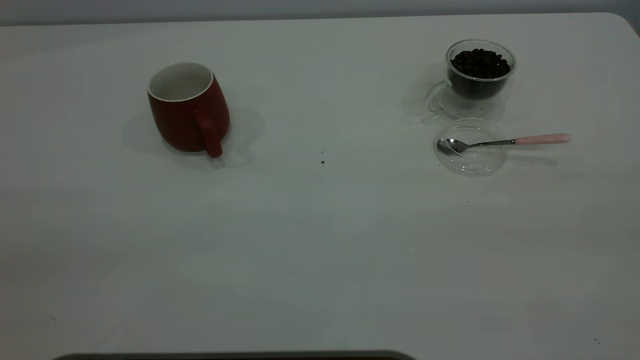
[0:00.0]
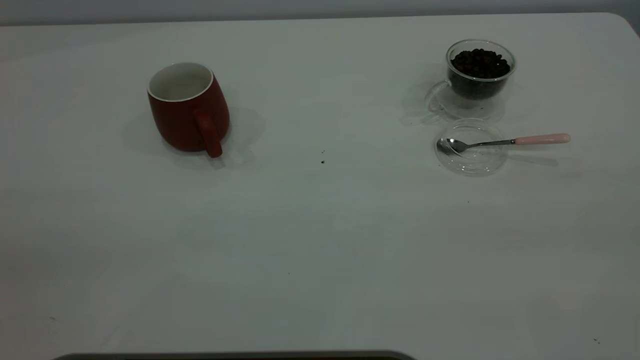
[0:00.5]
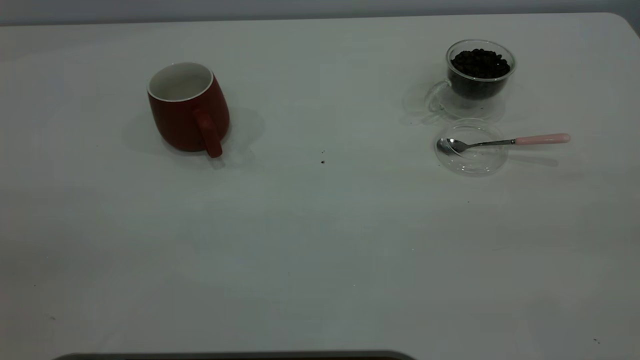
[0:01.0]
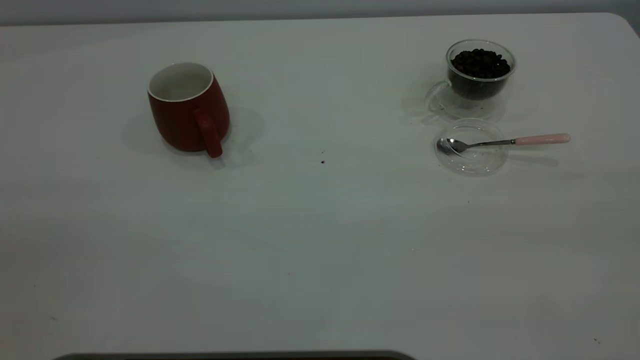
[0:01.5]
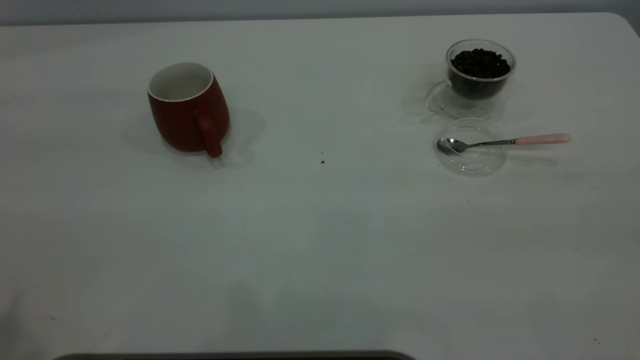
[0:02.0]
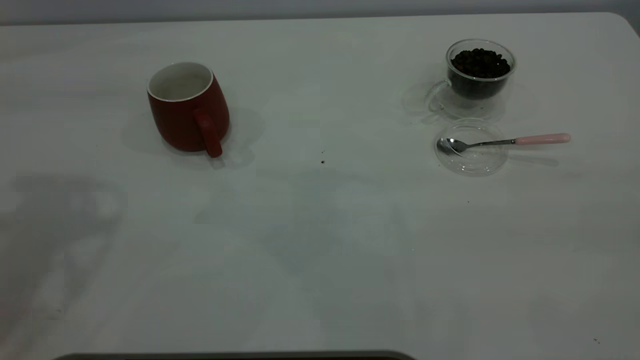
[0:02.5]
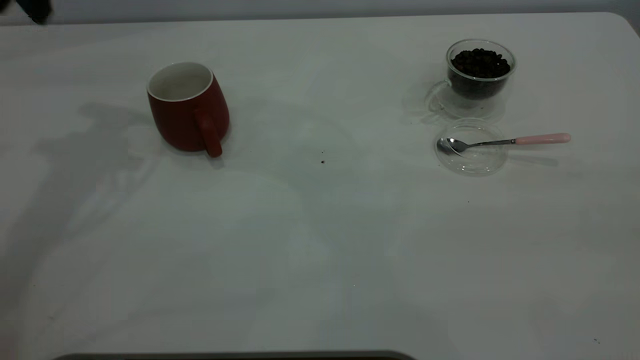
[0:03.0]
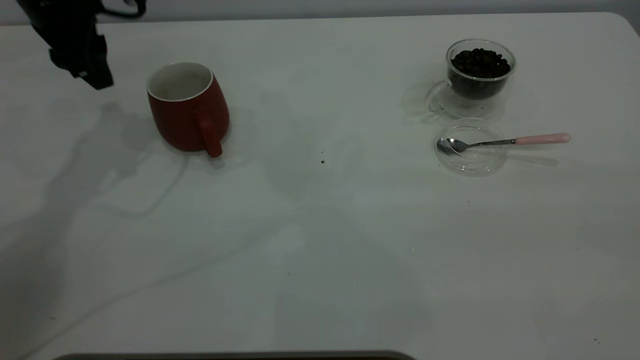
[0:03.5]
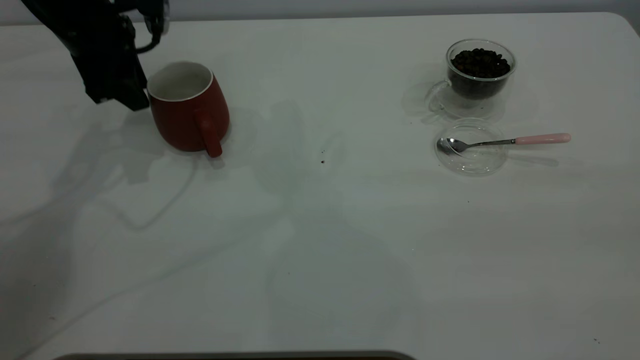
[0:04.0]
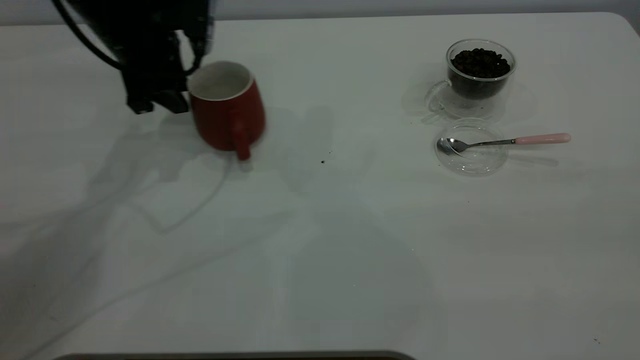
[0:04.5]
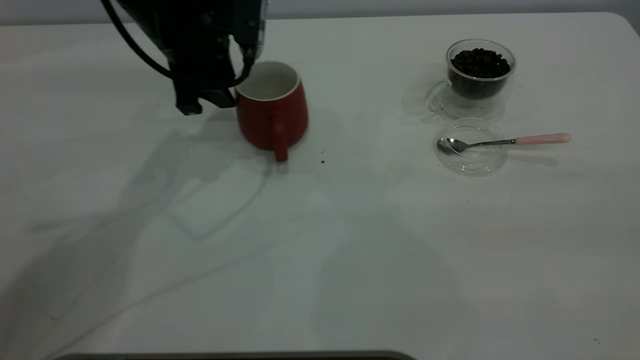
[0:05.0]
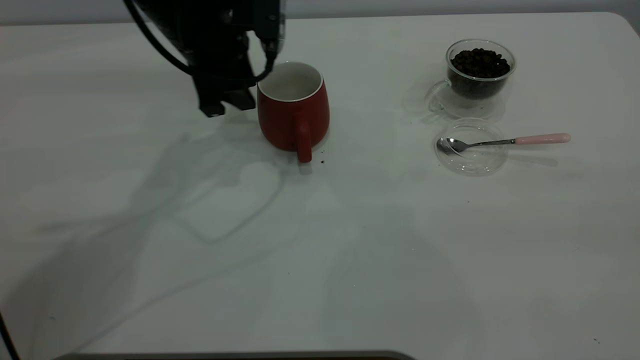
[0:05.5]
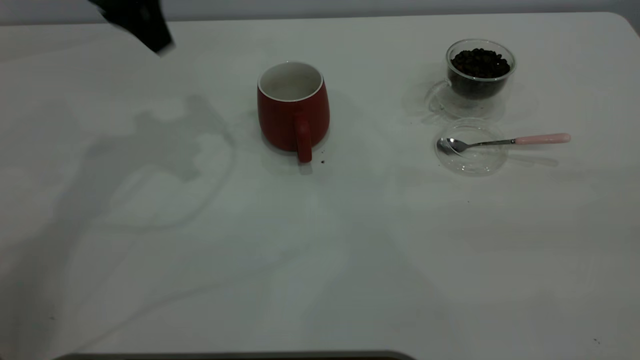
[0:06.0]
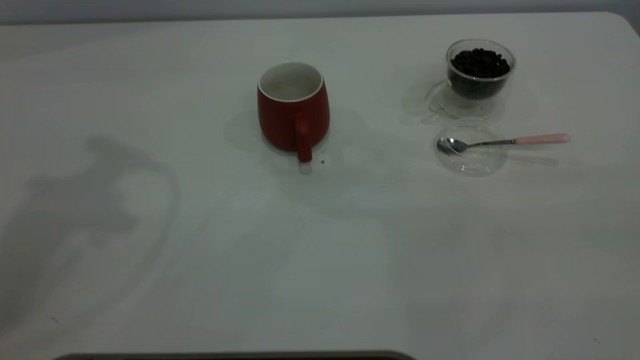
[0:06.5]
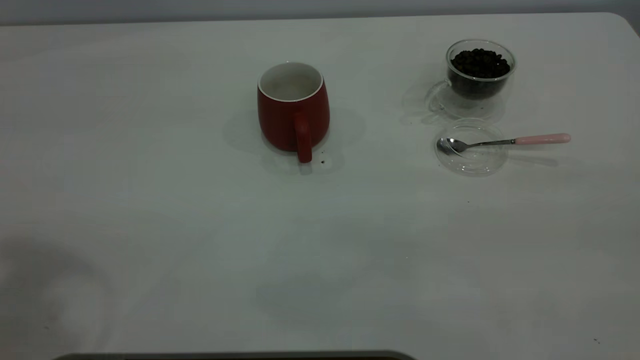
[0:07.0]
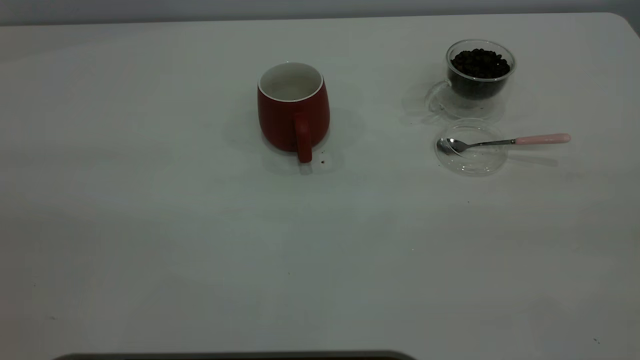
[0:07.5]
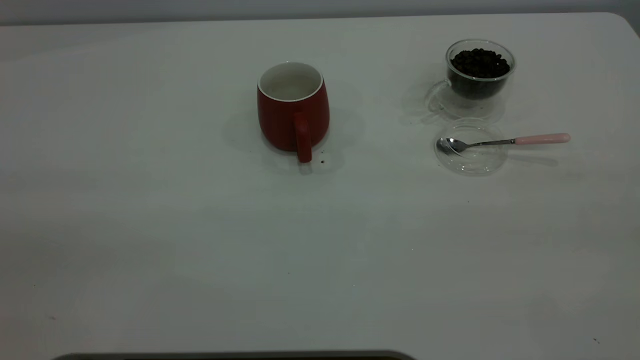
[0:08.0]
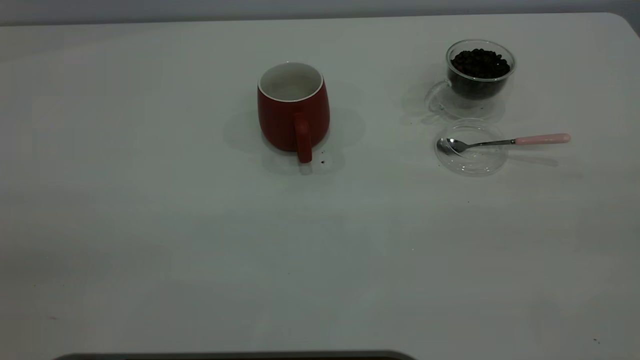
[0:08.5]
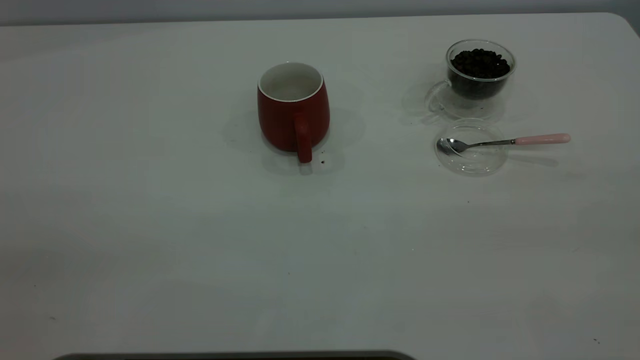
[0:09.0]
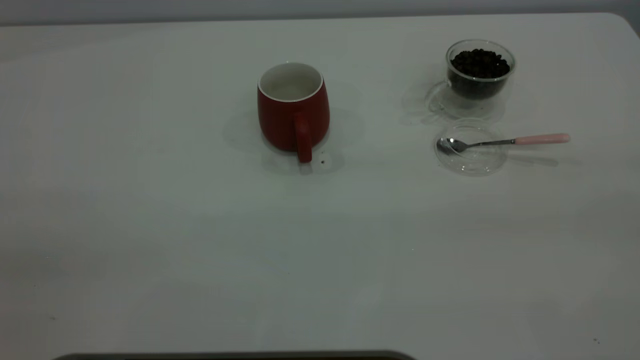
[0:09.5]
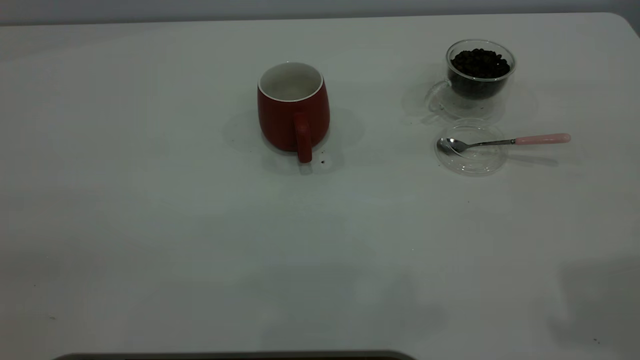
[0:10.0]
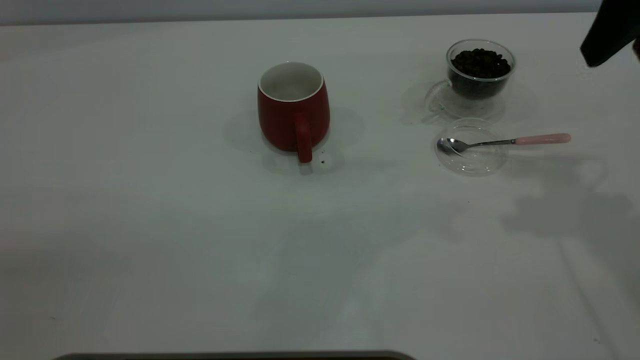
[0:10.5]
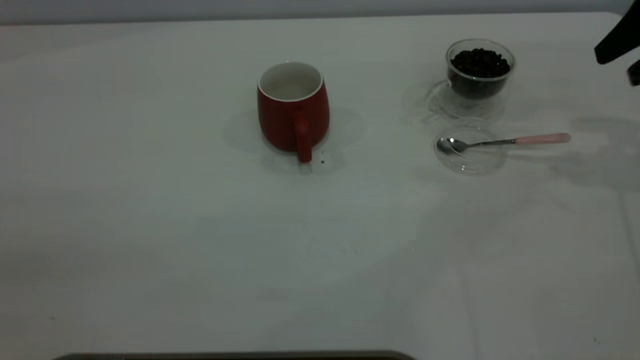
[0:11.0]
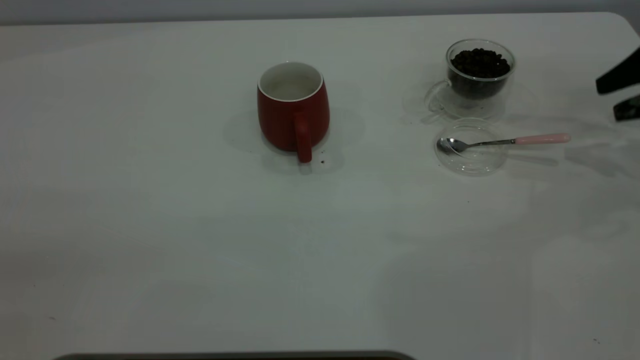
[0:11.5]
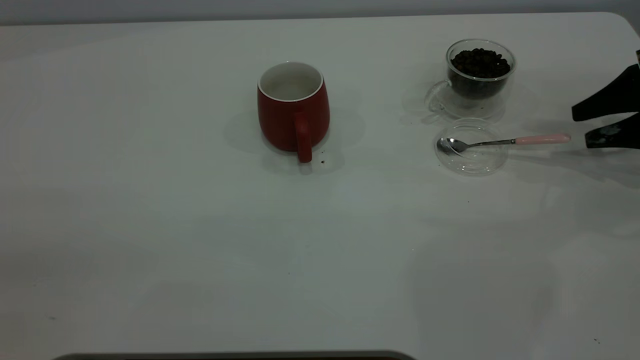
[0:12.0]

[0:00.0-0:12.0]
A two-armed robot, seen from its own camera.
Task of the whole recording: the left gripper place the red cup in the center of the table, the right gripper take the pink spoon from the cup lid and scoop out the coffee beans from the coffee cup and put them into the red cup, the right gripper put the spoon back into the cup lid.
Step, 0:00.0 to 0:05.5: Move the cup to the center of view.
0:02.0 to 0:04.0: The left gripper is displaced forward and downward by roughly 40 cm, and closes up.
0:04.0 to 0:06.0: The left gripper goes roughly 10 cm upward.
0:06.0 to 0:08.0: The left gripper travels backward by approximately 40 cm.
0:10.0 to 0:12.0: The right gripper heads downward, forward and to the right, covering roughly 35 cm.

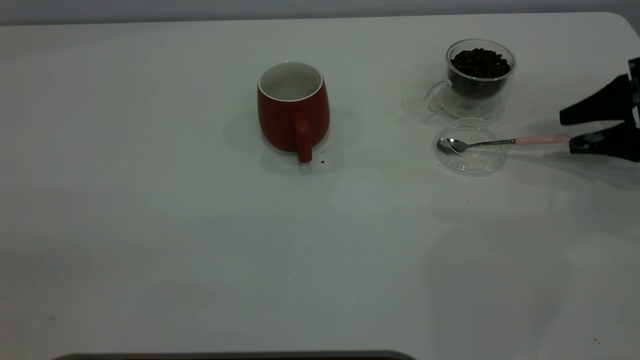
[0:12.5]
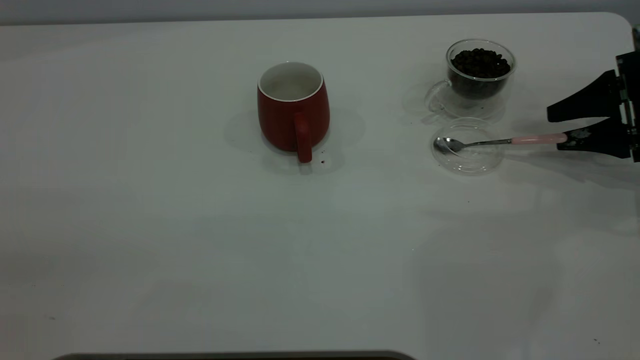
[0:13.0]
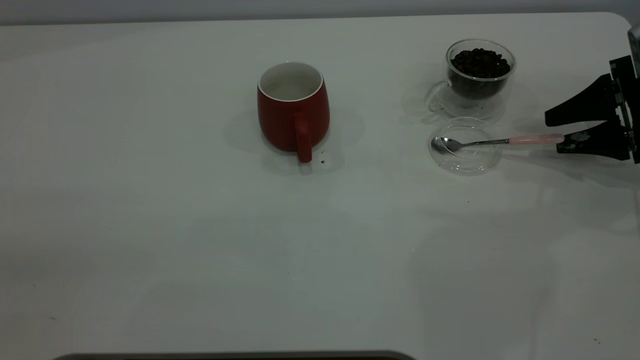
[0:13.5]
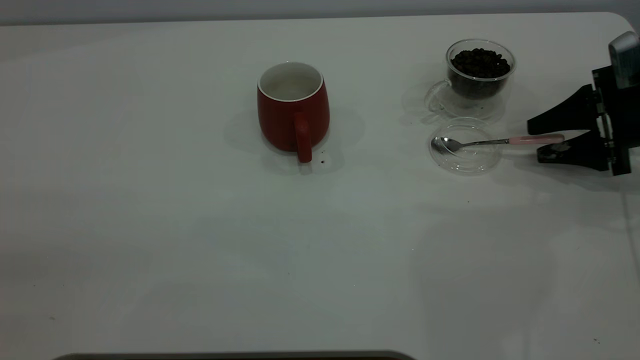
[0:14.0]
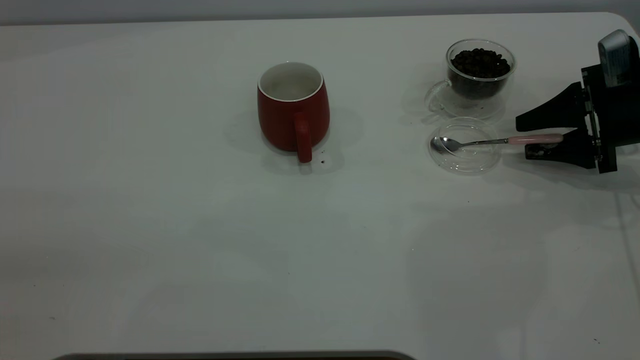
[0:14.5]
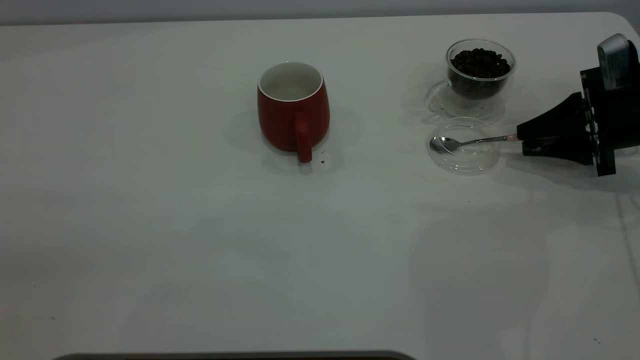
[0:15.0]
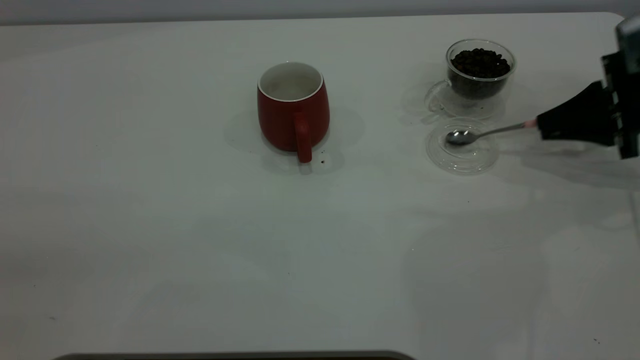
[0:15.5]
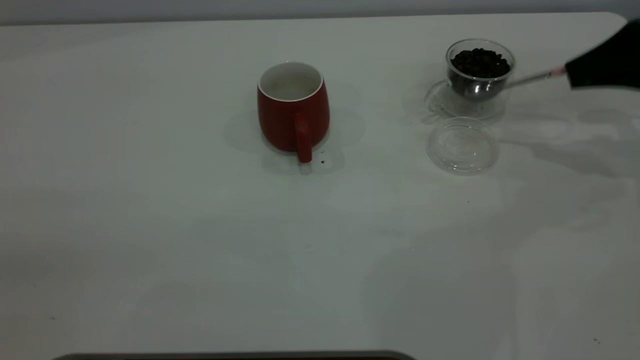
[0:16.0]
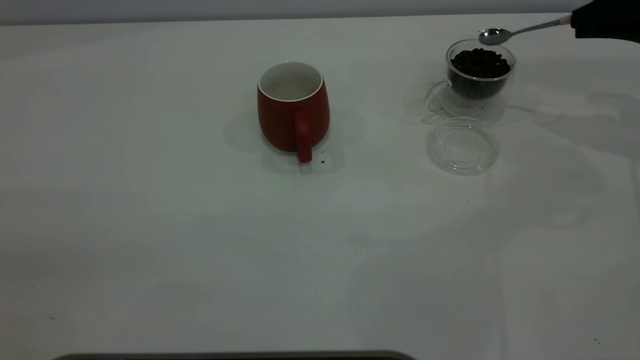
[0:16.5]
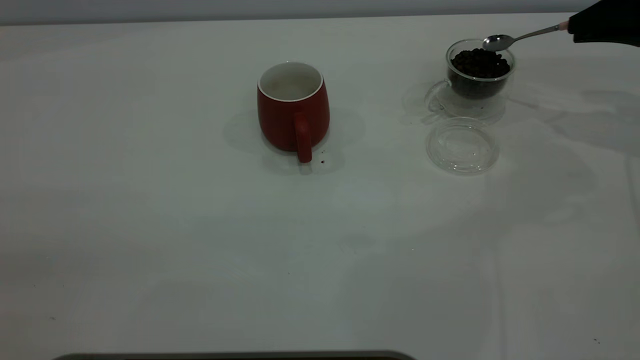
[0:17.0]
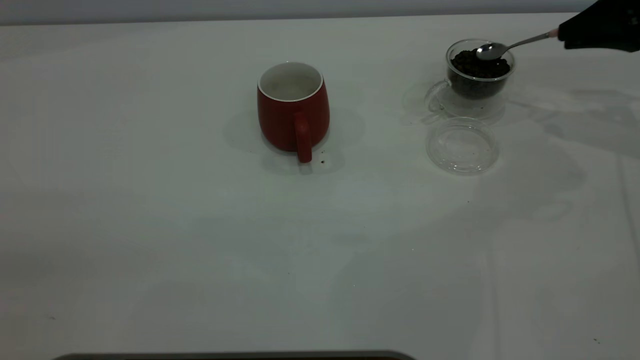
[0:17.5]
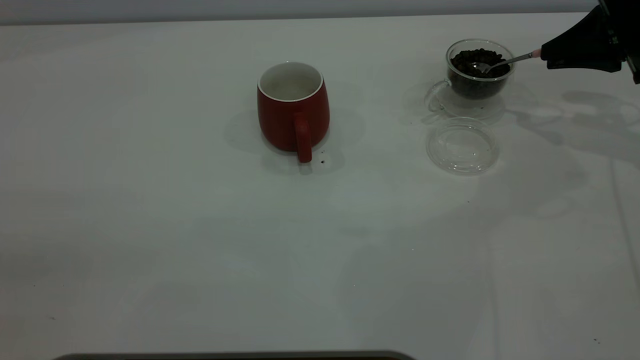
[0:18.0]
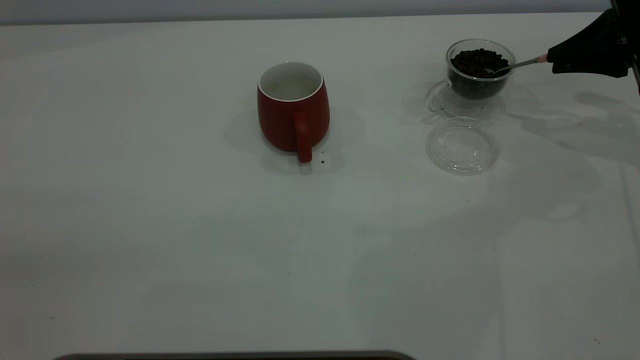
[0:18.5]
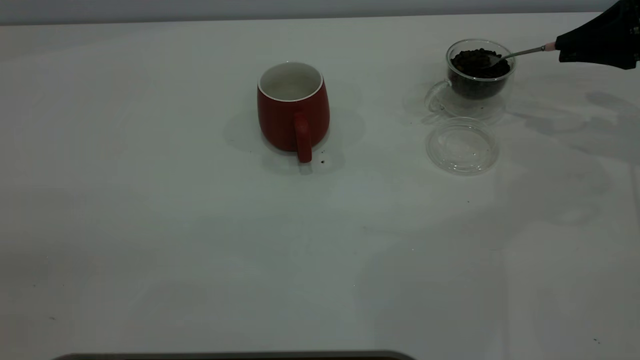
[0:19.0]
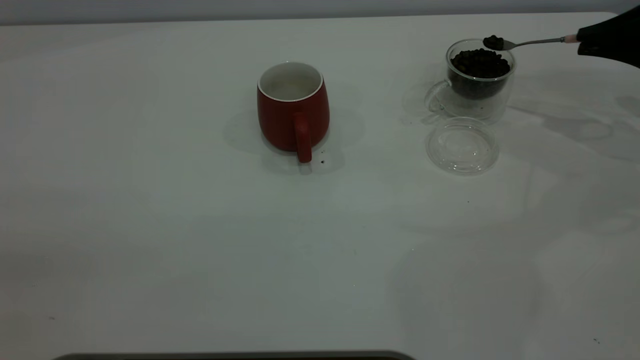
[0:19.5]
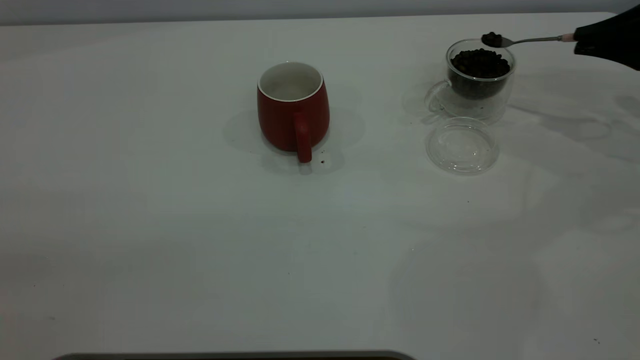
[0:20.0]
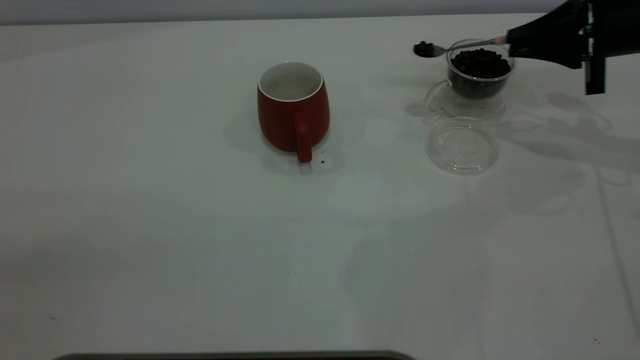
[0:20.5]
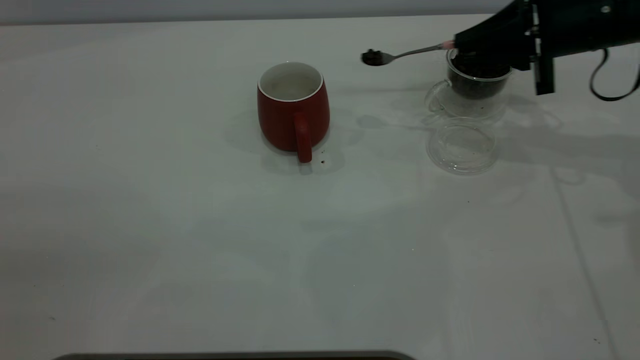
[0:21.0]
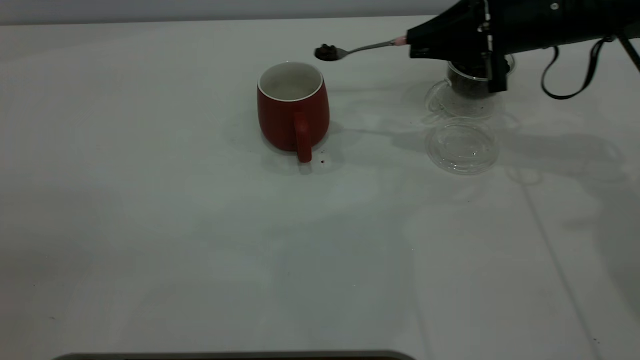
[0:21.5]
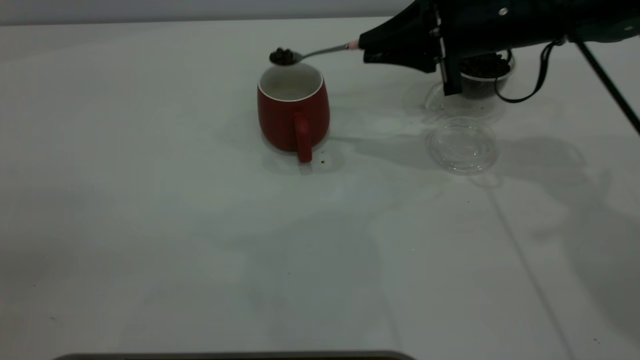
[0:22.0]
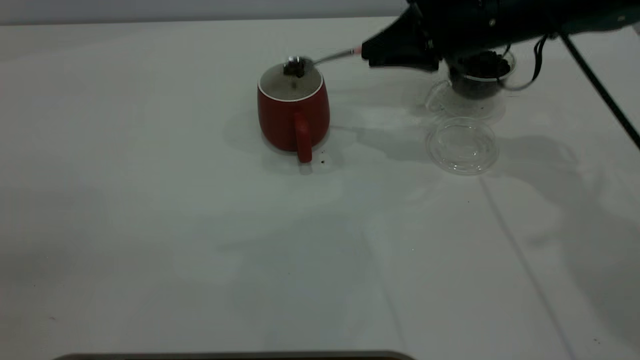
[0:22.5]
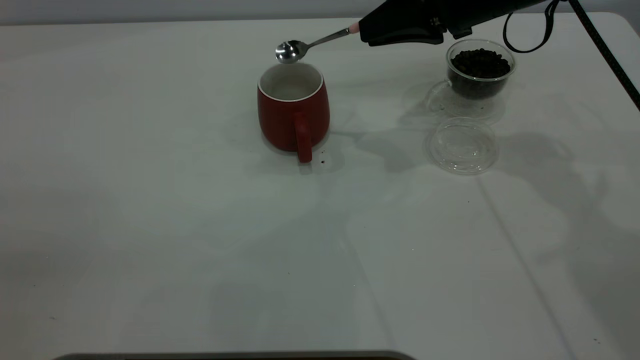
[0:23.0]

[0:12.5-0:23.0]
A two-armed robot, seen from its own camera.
Task of the whole recording: the left gripper place the red cup in the center of the table, the right gripper take the pink spoon from the cup lid and scoop out the coffee beans from the coffee cup and put them into the red cup, the right gripper put the spoon back into the cup lid.
Step, 0:12.5 to 0:15.5: Pick up the spoon.
0:12.5 to 0:14.5: The grippers move only a little.
0:14.5 to 0:16.5: The right gripper heads upward, covering approximately 10 cm, and closes.
0:16.5 to 0:19.0: The grippers make only small movements.
0:19.0 to 0:21.0: The right gripper is displaced to the left by approximately 10 cm.
0:21.0 to 0:23.0: The right gripper shifts about 10 cm to the left.
